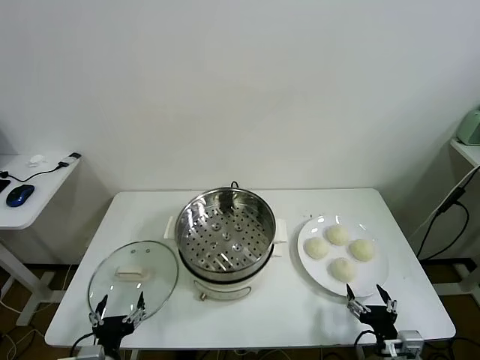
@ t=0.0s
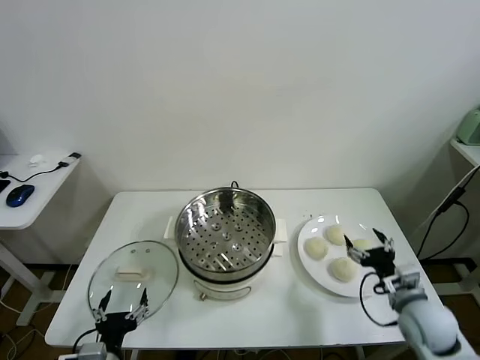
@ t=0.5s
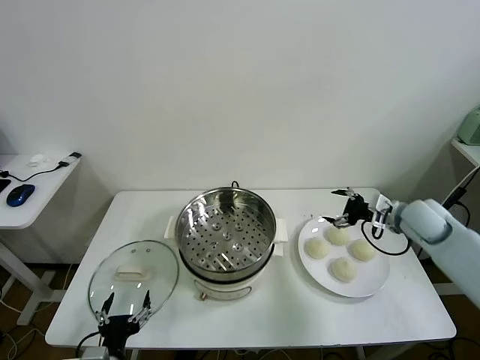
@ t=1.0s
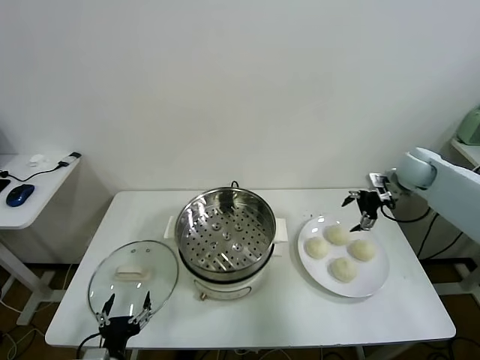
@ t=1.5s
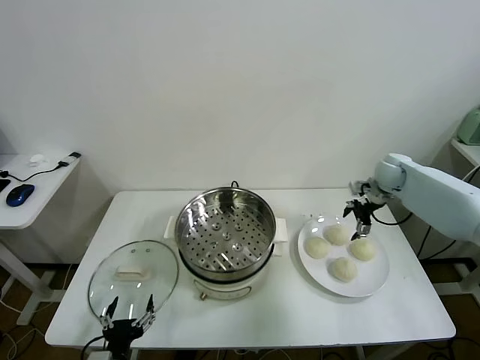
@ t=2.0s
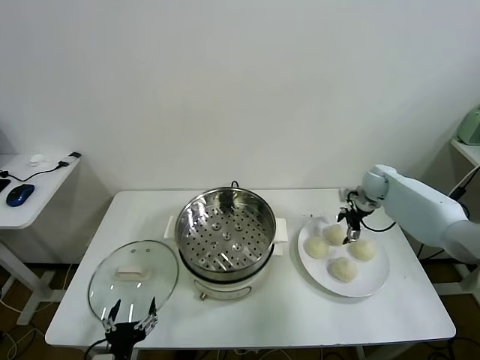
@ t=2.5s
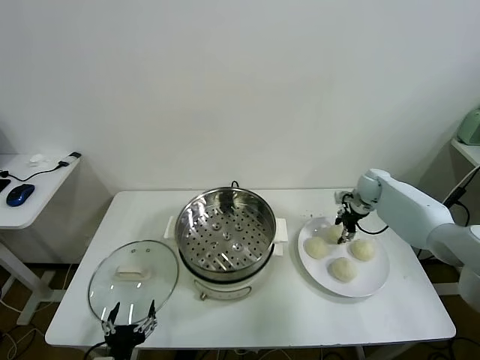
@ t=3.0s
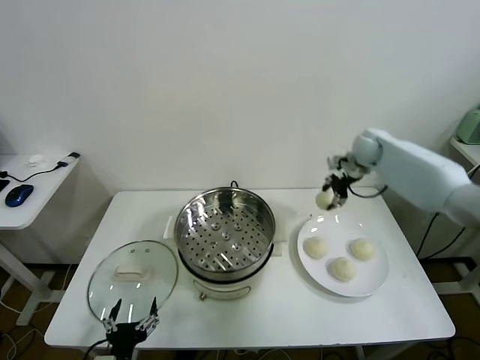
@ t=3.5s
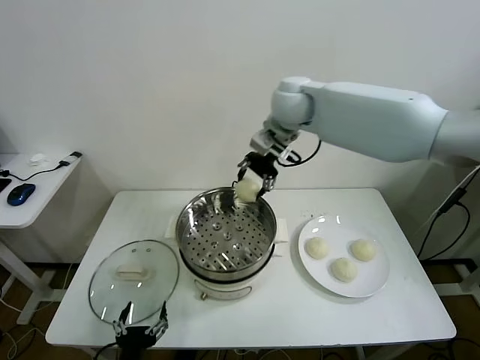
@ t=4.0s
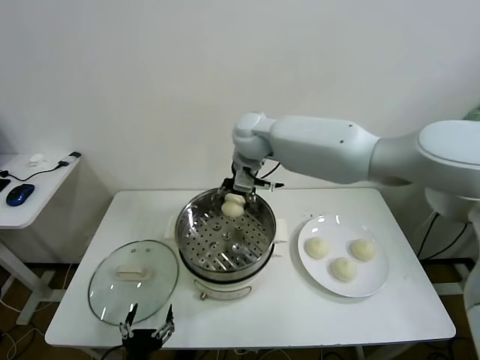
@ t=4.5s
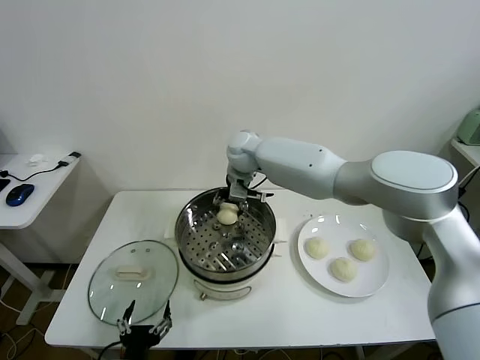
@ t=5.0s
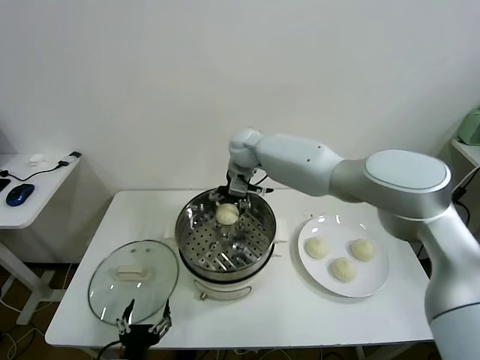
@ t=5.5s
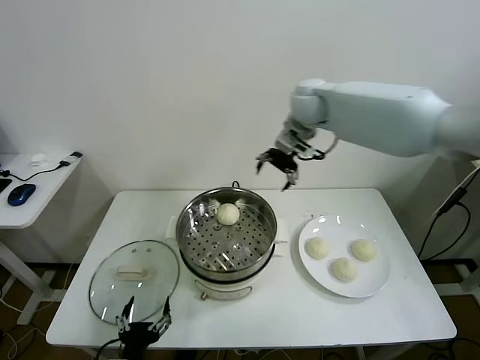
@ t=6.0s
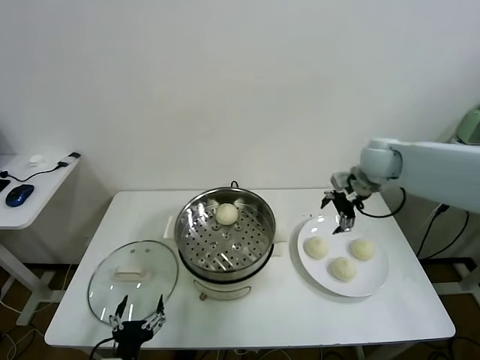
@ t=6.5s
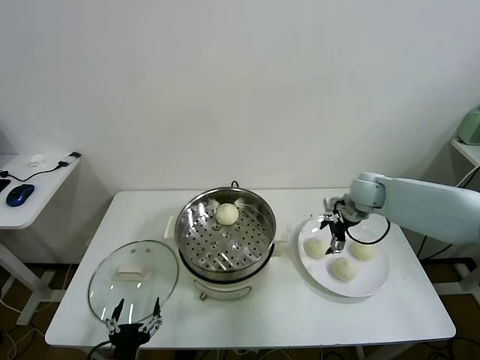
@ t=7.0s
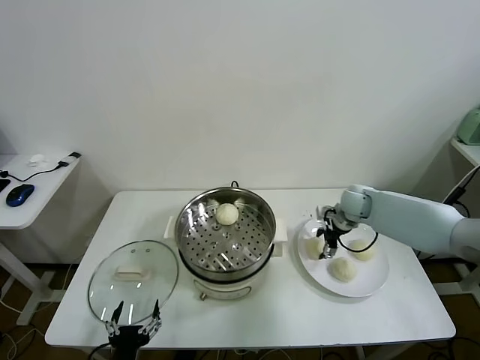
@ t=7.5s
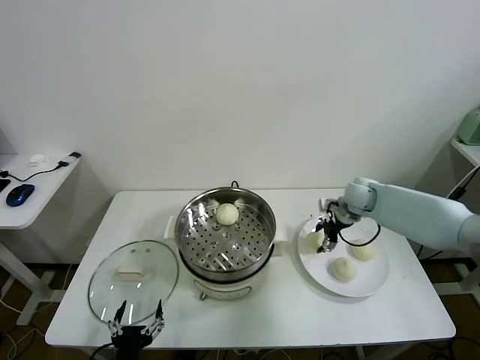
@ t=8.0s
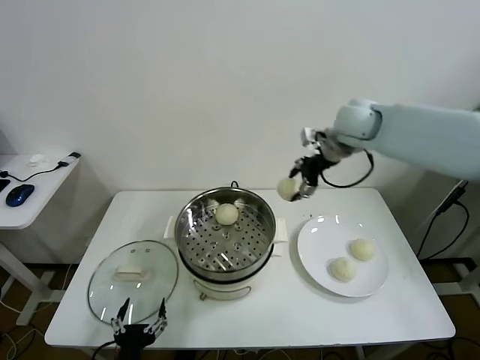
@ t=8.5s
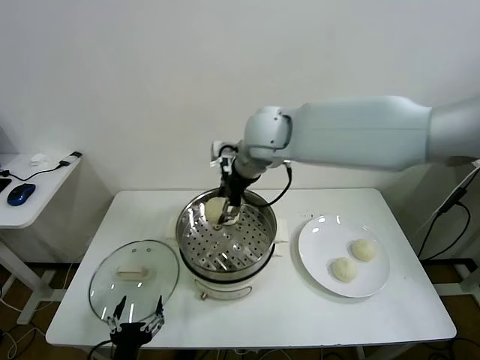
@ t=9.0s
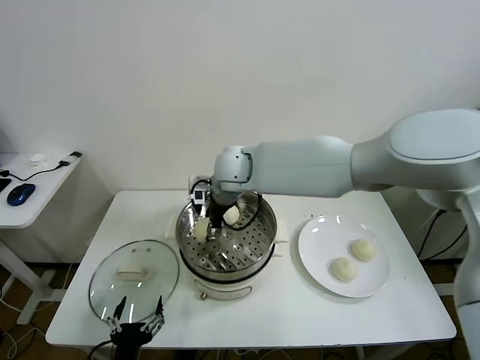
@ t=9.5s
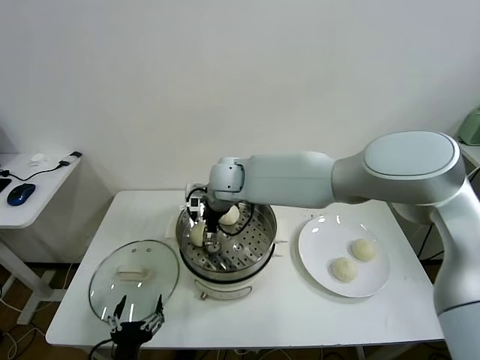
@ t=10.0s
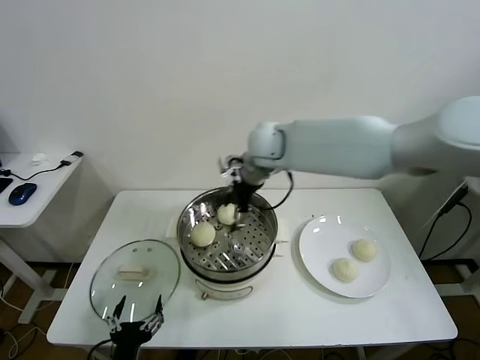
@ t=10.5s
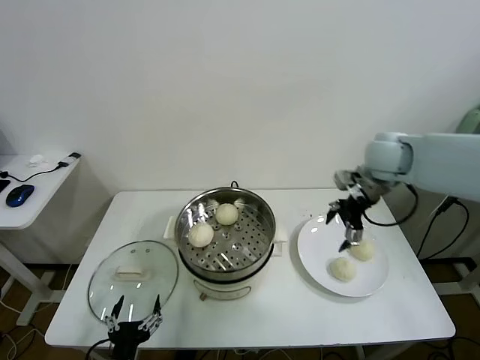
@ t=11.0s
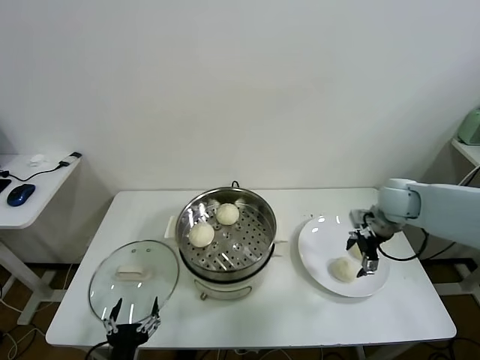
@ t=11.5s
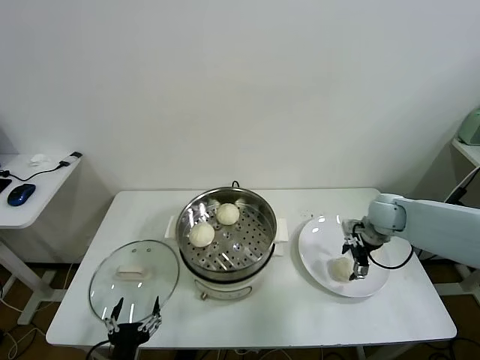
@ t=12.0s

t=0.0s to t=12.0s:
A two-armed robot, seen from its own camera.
Task of the whole recording: take steamed baozi put them in steamer.
Step, t=0.0s to t=3.0s: Grasp the baozi in the plate with right gripper.
Step, t=3.5s to t=5.5s: Place the baozi on the steamer with right gripper.
Step, t=6.0s to t=7.5s: Grasp the baozi in the plate with right gripper.
Step, t=8.0s to t=10.0s: Place the baozi on the steamer with right gripper.
t=2.0s to t=4.0s: The right gripper goes some 40 cm to the left and upward, and closes.
t=4.0s to t=6.0s: The right gripper goes some 15 cm to the right, and opens.
t=6.0s to t=8.0s: The right gripper goes some 25 cm downward and to the right, and closes.
t=8.0s to t=10.0s: The right gripper is displaced to the left by some 35 cm, and opens up.
t=10.0s to t=12.0s: The right gripper is displaced to the right by roughly 40 cm.

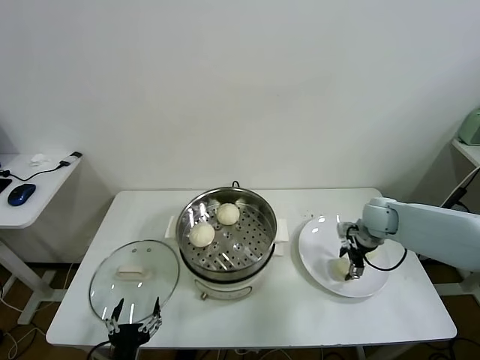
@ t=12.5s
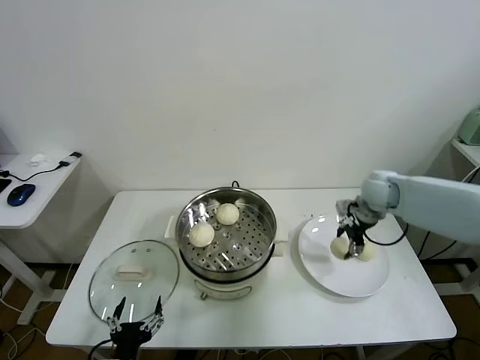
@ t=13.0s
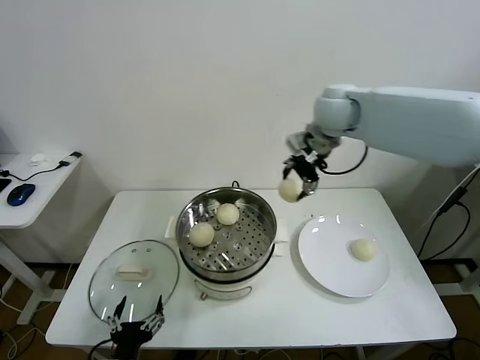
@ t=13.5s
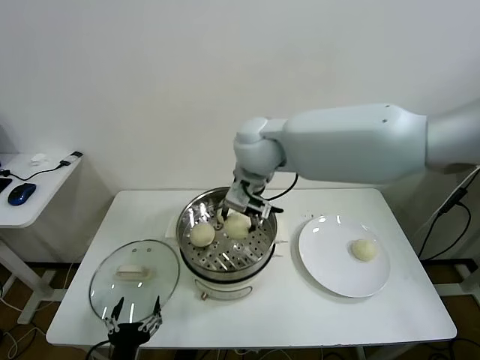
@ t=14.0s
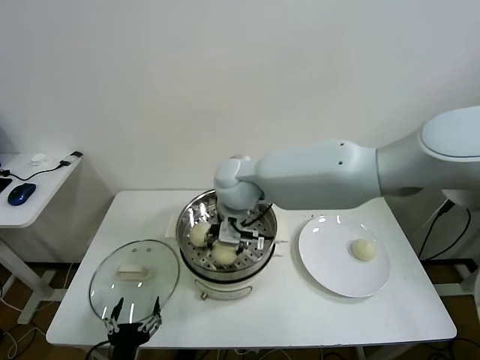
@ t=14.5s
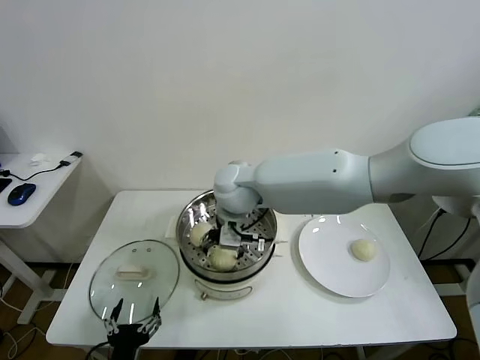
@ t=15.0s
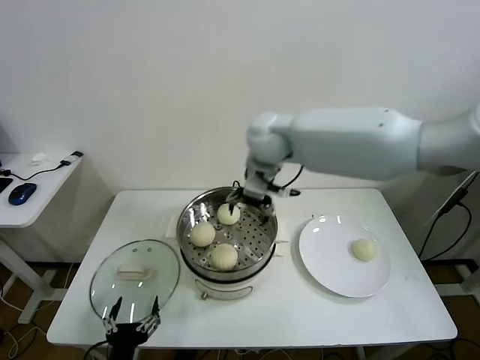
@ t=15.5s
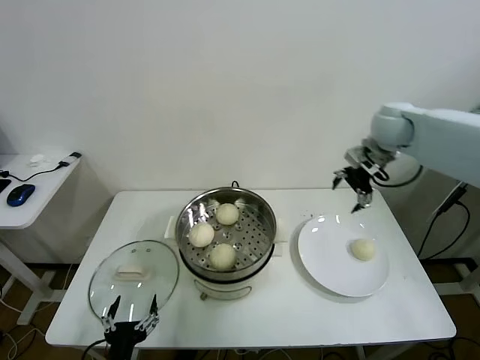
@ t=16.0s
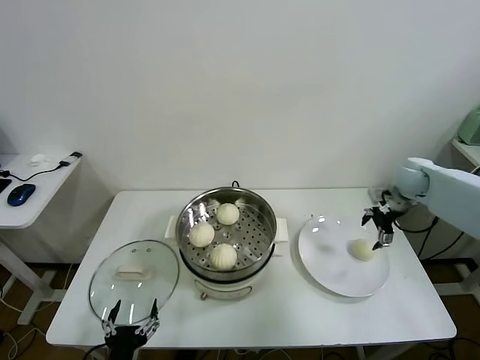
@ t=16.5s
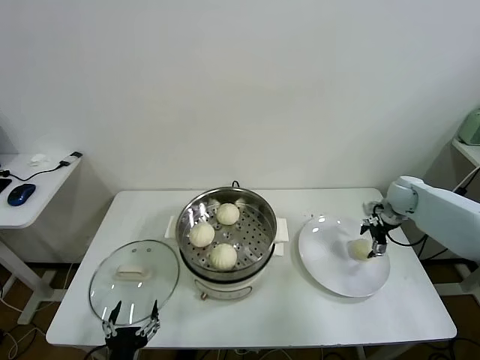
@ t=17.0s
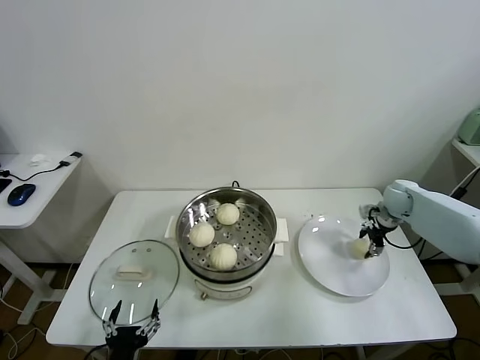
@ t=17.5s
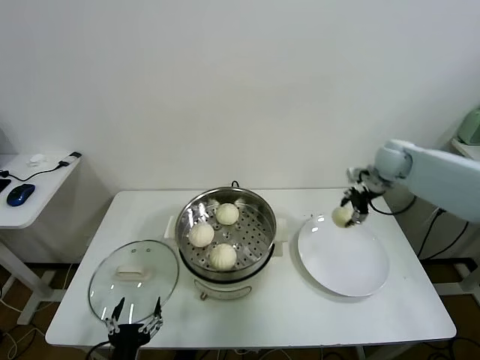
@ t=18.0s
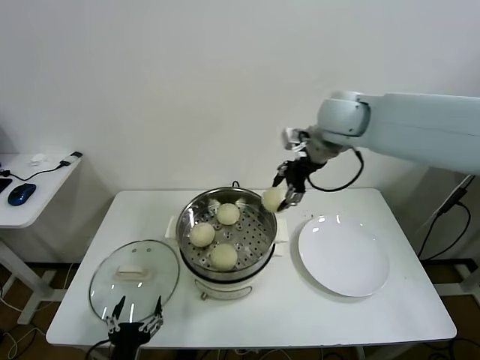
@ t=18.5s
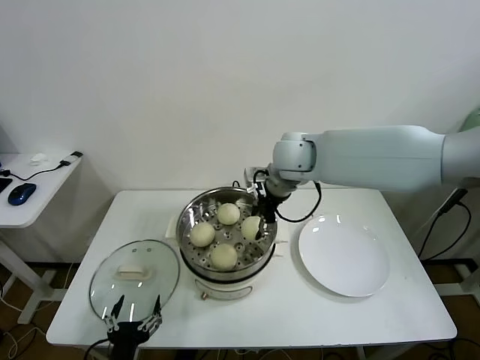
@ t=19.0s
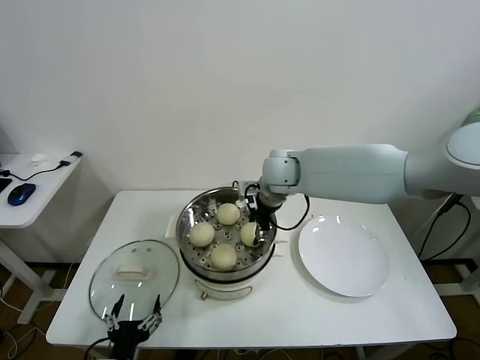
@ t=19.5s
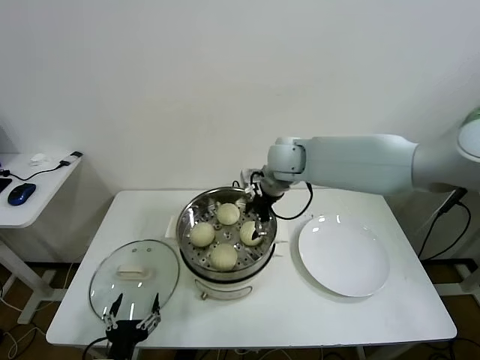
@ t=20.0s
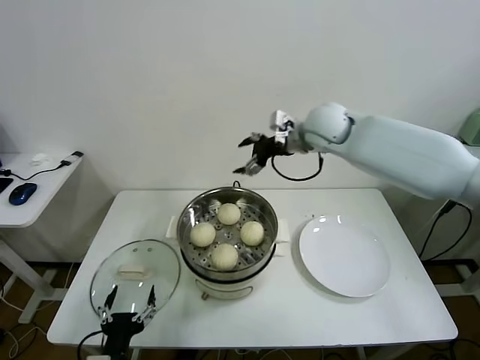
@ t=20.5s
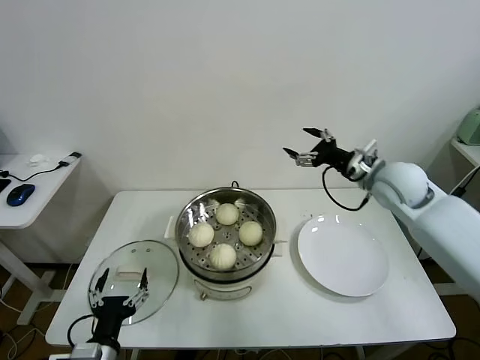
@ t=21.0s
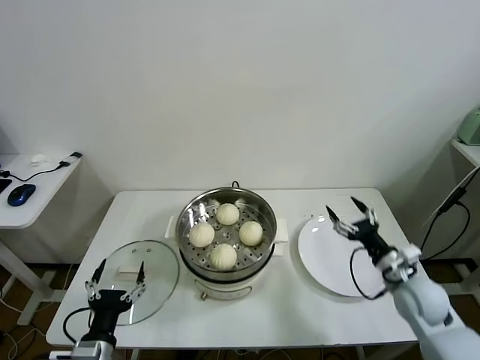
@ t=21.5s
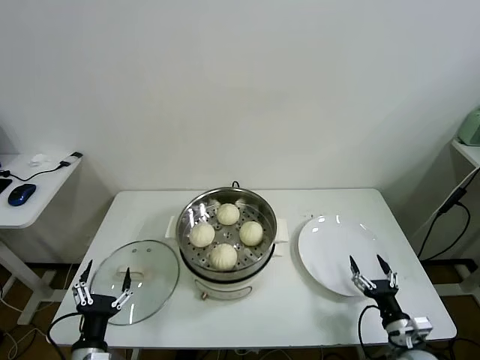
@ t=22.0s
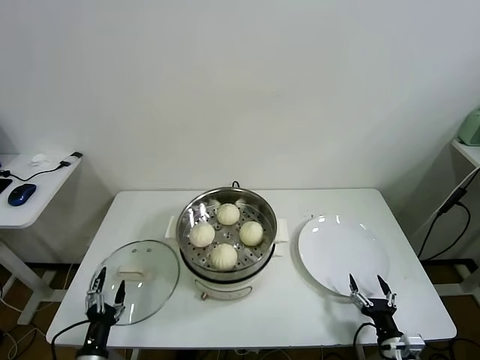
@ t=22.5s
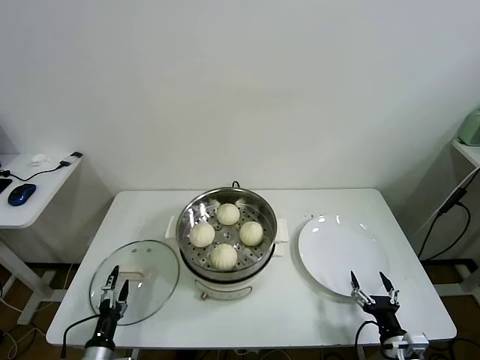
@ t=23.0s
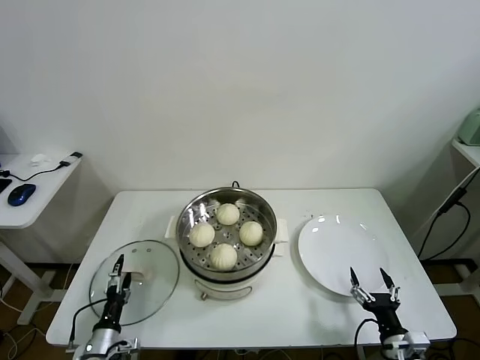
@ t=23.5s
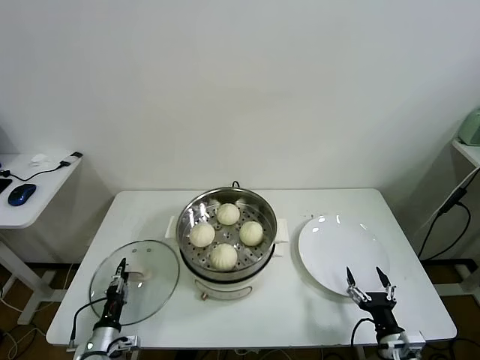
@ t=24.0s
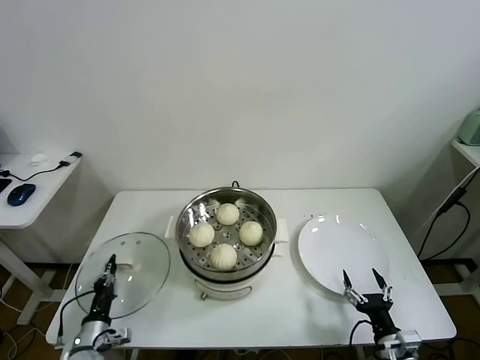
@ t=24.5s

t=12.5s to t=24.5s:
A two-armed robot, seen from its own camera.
Task of the whole recording: take steamed baozi put them in steamer.
Step, t=13.0s to t=15.0s: Place the baozi on the steamer with right gripper.
Step, t=15.5s to t=17.0s: Grasp the baozi in the plate with right gripper.
Step, t=18.0s to t=20.0s: Place the baozi on the steamer with right gripper.
Step, t=20.5s to t=24.0s: Grasp the pot lid with left gripper.
t=12.5s to t=14.5s: The right gripper moves to the left and upward, about 40 cm.
t=14.5s to t=16.5s: The right gripper travels to the right by about 40 cm, and opens up.
t=16.5s to t=18.5s: The right gripper moves to the left and upward, about 30 cm, and closes.
t=18.5s to t=20.5s: The right gripper moves roughly 15 cm downward and comes back, and opens its fingers.
t=20.5s to t=22.5s: The right gripper moves downward, backward and to the right, roughly 60 cm; the left gripper travels downward and to the left by some 10 cm.
t=22.5s to t=24.5s: The left gripper heads forward, covering roughly 5 cm, and closes its fingers.

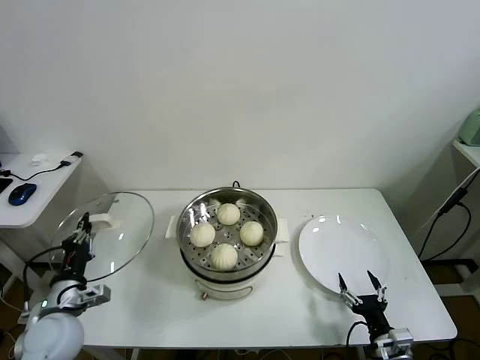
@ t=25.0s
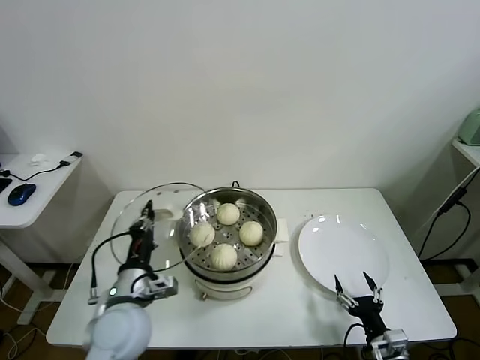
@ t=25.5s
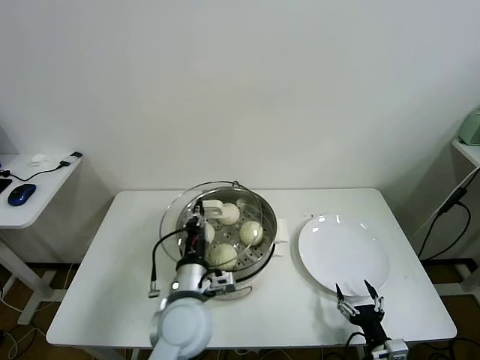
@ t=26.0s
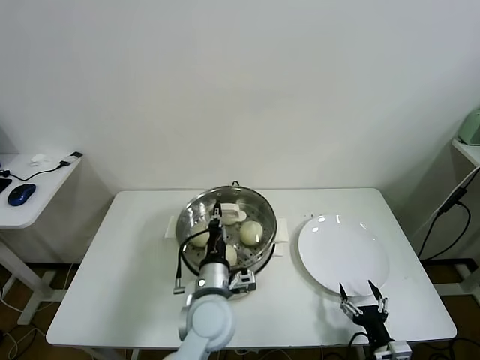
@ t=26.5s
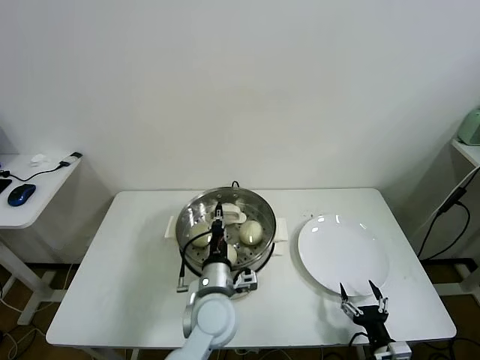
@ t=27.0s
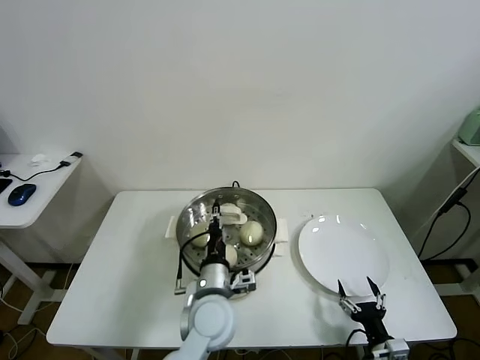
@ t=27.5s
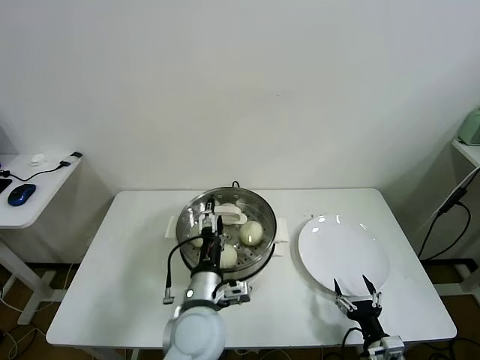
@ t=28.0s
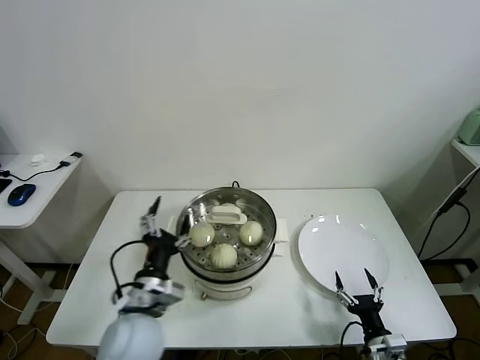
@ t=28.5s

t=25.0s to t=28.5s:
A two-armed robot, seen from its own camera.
Task of the whole recording: take steamed baozi put them in steamer.
Step, t=25.0s to t=28.0s: Place the pot lid on the steamer with left gripper.
t=25.0s to t=27.0s: The left gripper travels to the right by roughly 30 cm.
t=27.0s to t=28.5s: The left gripper travels to the left and backward by roughly 10 cm, and opens its fingers.
